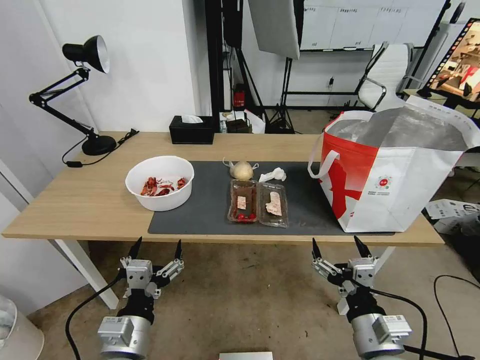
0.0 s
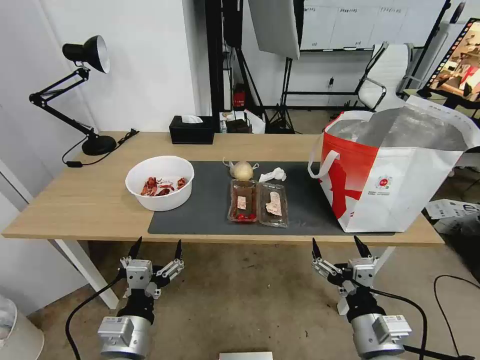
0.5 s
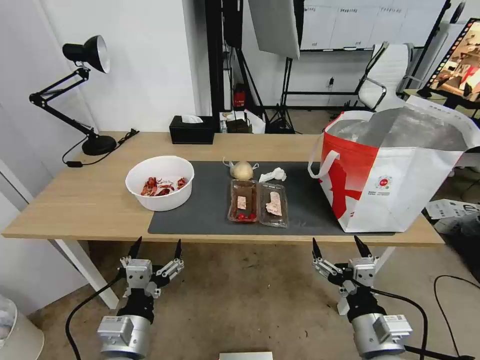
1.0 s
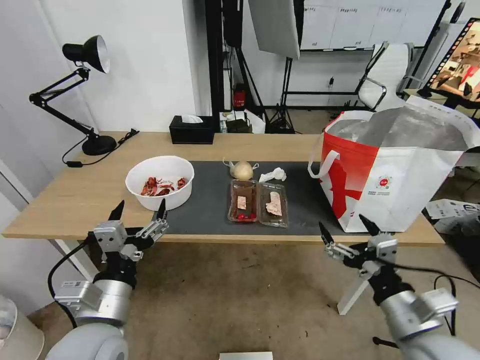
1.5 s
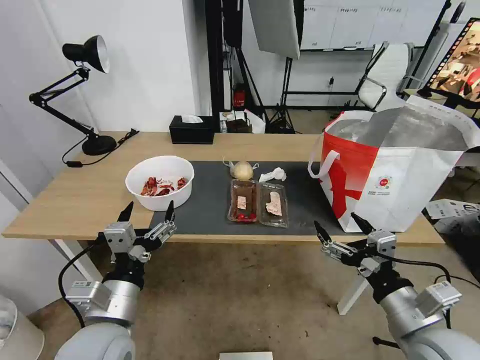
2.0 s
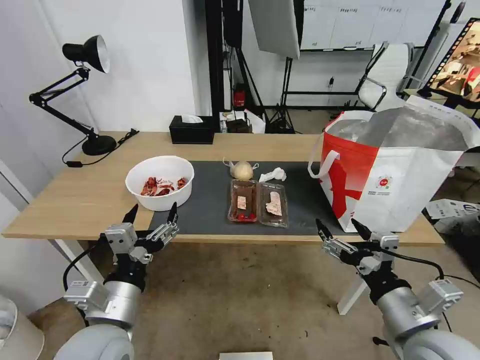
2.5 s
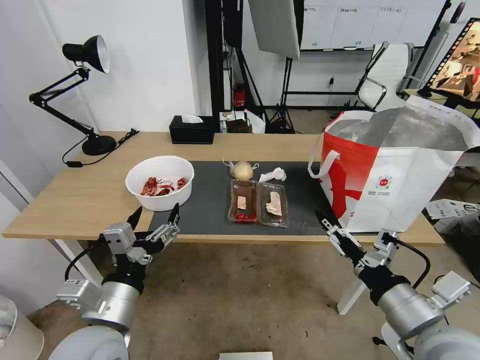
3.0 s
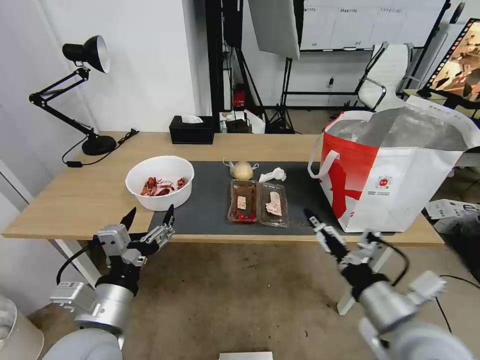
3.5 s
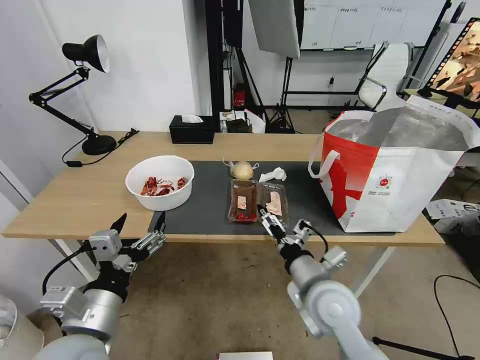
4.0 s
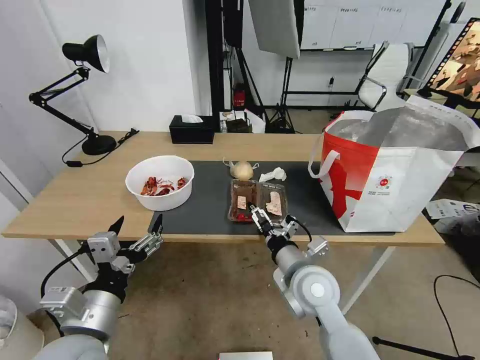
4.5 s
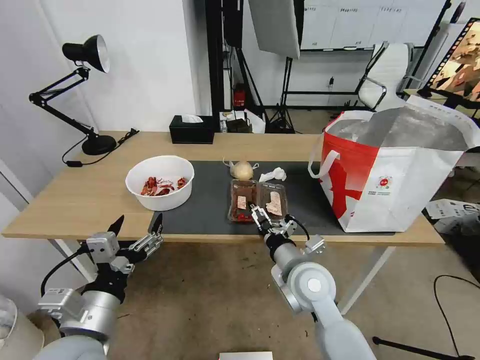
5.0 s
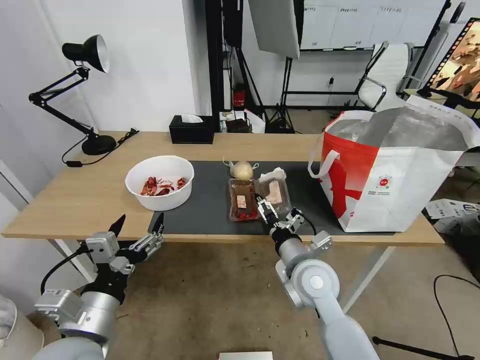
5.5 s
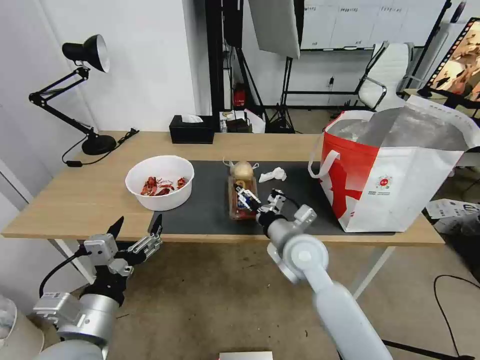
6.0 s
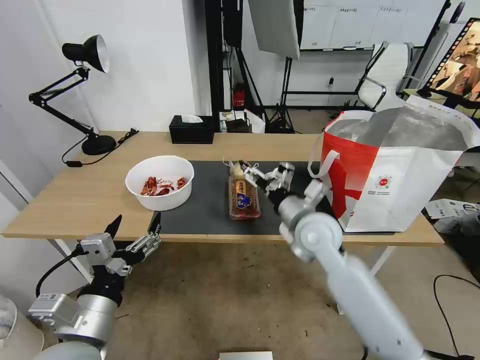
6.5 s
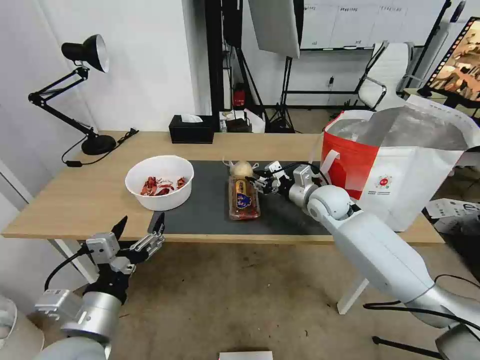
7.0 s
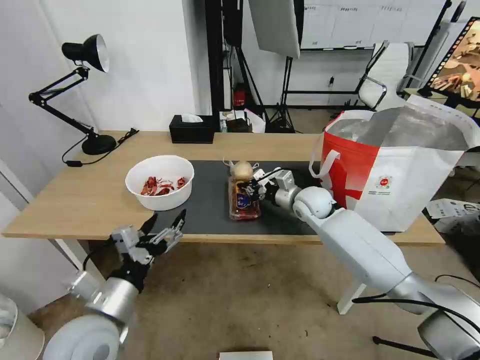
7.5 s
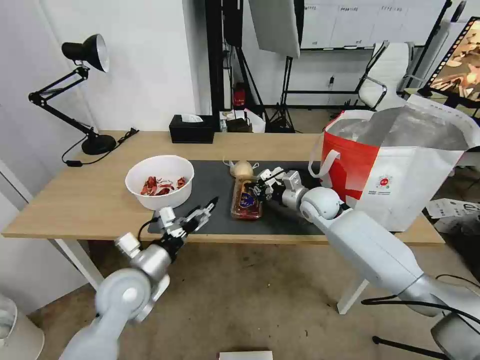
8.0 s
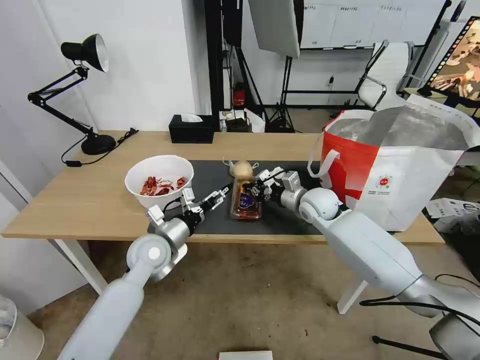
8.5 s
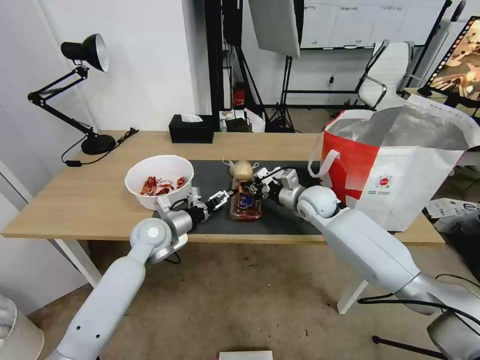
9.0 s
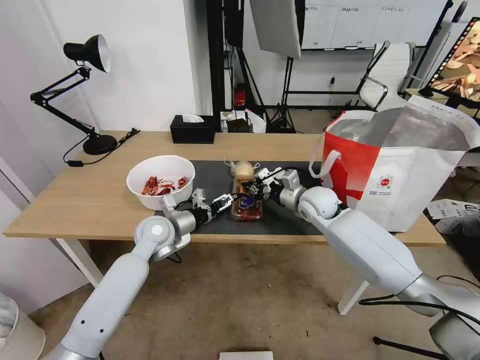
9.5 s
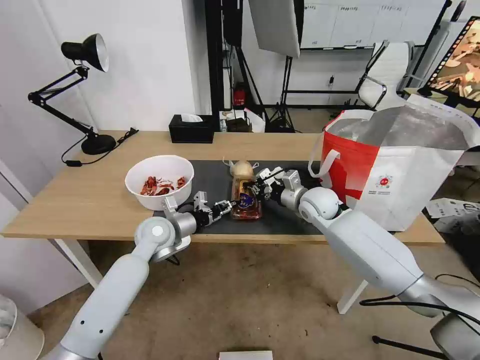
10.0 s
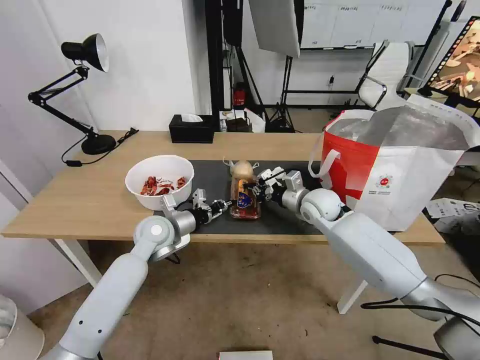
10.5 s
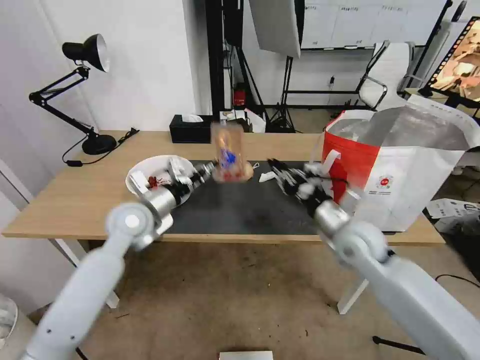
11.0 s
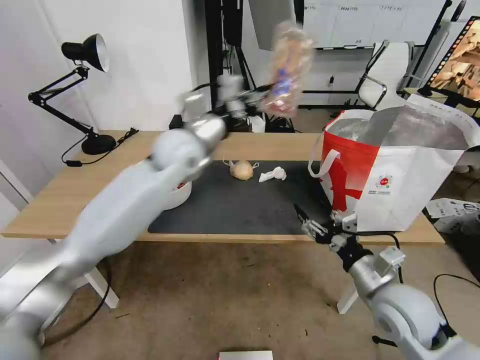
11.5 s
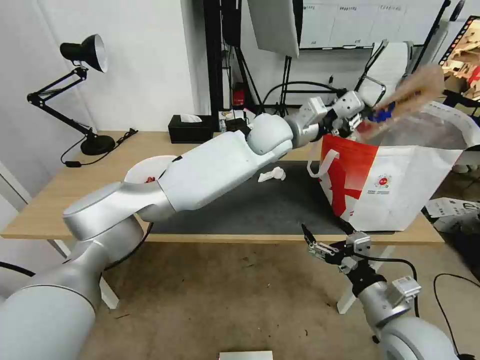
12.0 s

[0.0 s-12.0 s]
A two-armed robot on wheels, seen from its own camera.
Task of the whole recording: Pick up the trash from the table and place it into the takeout bag.
2.0 to 4.0 s: The right gripper shifts roughly 15 cm to the left and forward.
4.0 to 6.0 s: The right gripper is displaced forward by approximately 10 cm.
6.0 to 8.0 s: The left gripper moves forward, about 15 cm. The right gripper travels forward and to the right by about 20 cm, and closes.
8.0 to 10.0 s: The left gripper moves forward, roughly 15 cm, and closes.
10.0 to 12.0 s: The right gripper travels backward by some 30 cm, and opens up. Meanwhile the left gripper goes some 35 cm to the right, upward and forward, and closes.

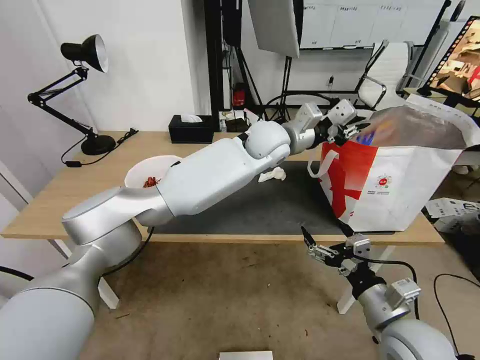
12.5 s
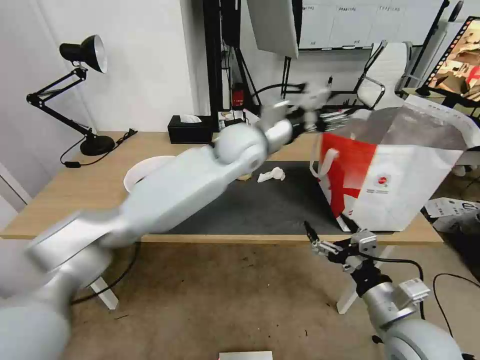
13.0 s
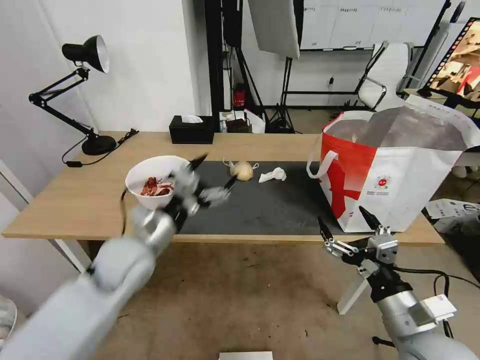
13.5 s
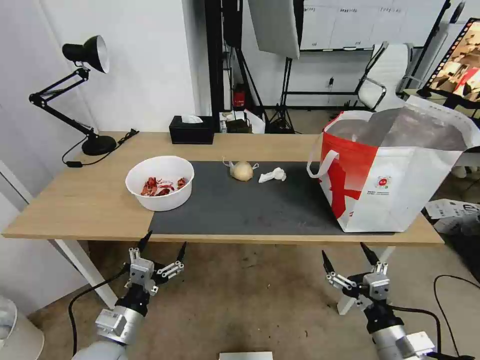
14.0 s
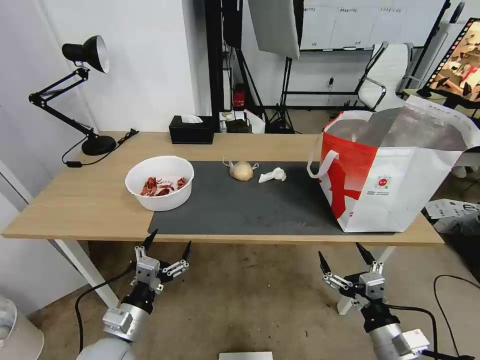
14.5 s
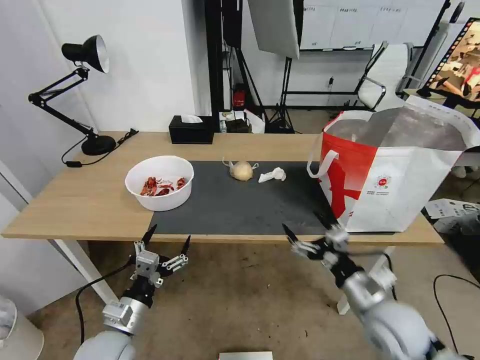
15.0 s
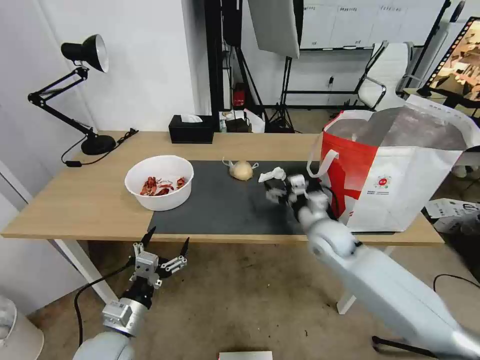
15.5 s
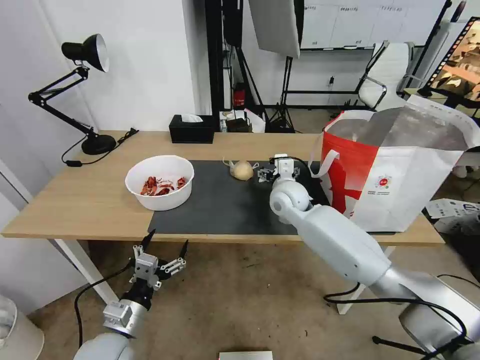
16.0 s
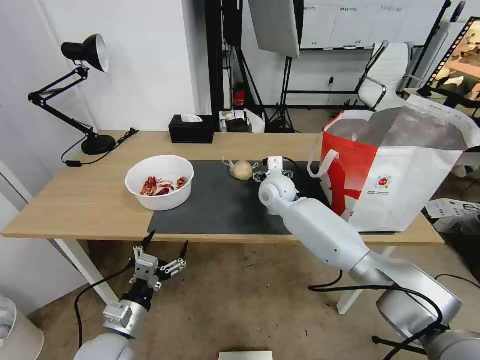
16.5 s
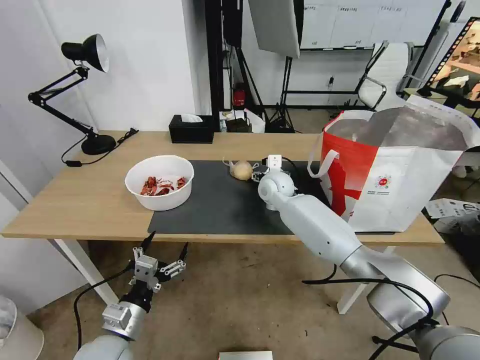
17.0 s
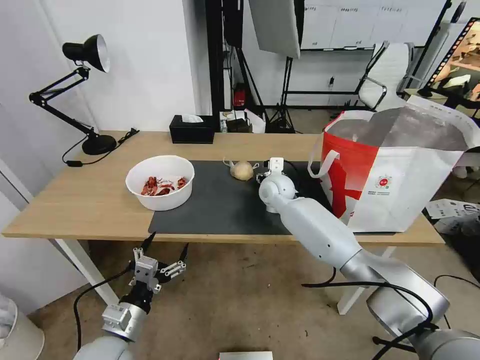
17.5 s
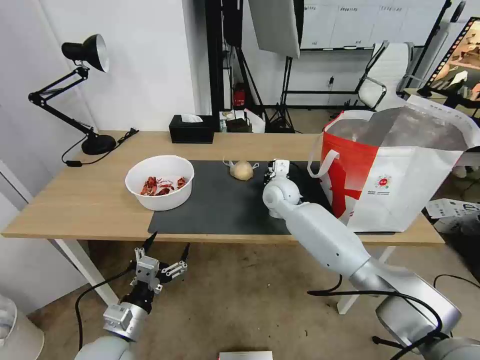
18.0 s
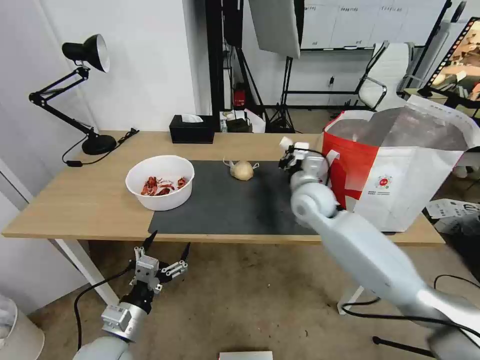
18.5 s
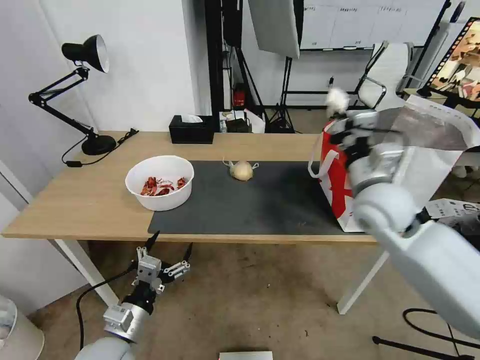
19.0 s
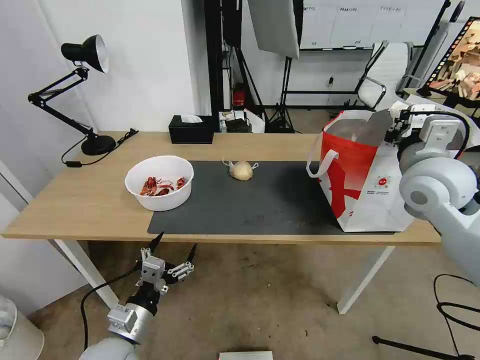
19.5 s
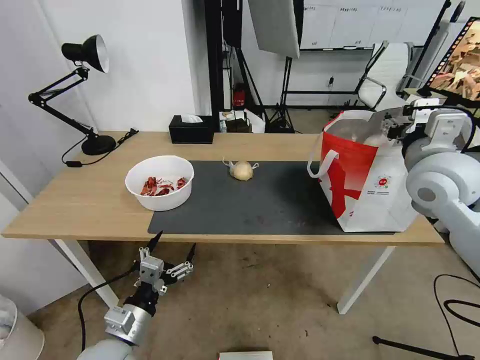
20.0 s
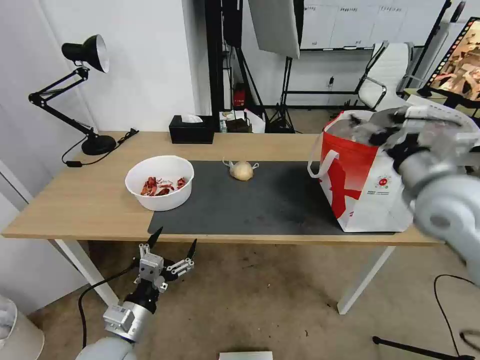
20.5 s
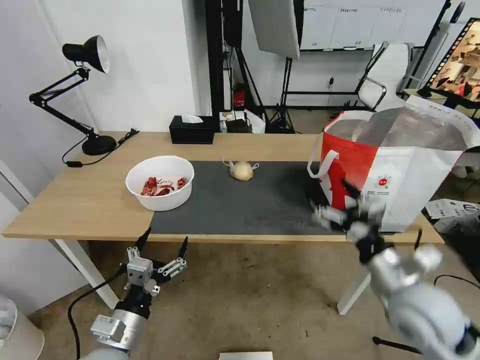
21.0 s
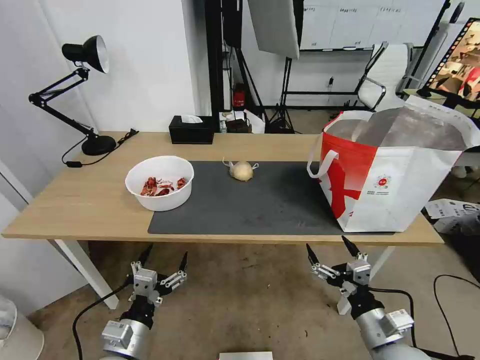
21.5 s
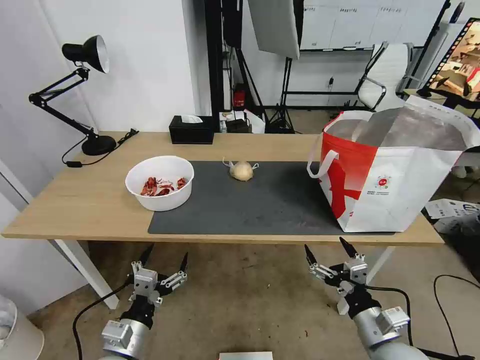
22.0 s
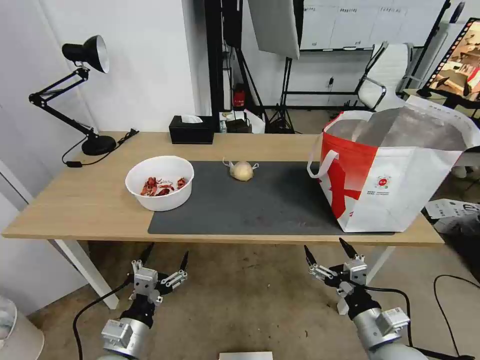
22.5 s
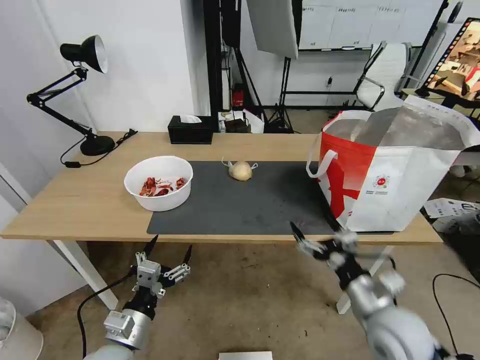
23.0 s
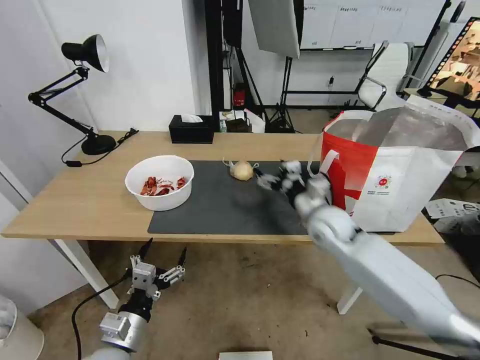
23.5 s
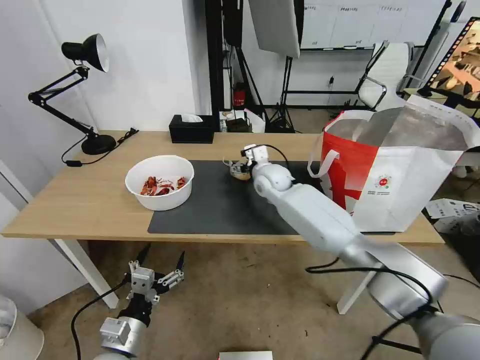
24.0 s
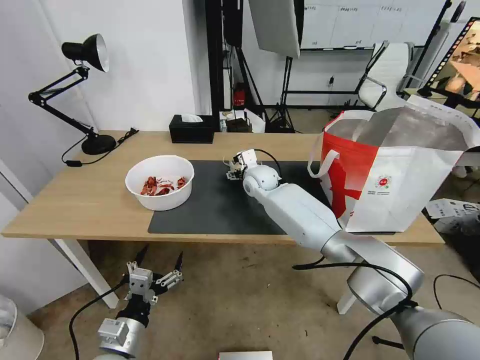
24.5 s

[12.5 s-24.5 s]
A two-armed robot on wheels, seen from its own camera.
Task of the whole recording: Pick up the trash from the table and place it into the takeout bag.
12.5 to 14.5 s: The right gripper goes approximately 10 cm downward and backward. The left gripper moves backward, to the left and downward, some 50 cm, and opens.
14.5 to 16.5 s: The right gripper heads forward and to the left, covering roughly 50 cm.
16.5 to 18.5 s: The right gripper heads to the right and backward, covering approximately 10 cm, and closes its fingers.
18.5 to 20.5 s: The right gripper is displaced to the right, upward and backward by approximately 25 cm, and opens up.
20.5 to 22.5 s: The right gripper goes some 30 cm downward and backward.
22.5 to 24.5 s: The right gripper heads forward and to the left, covering some 50 cm.

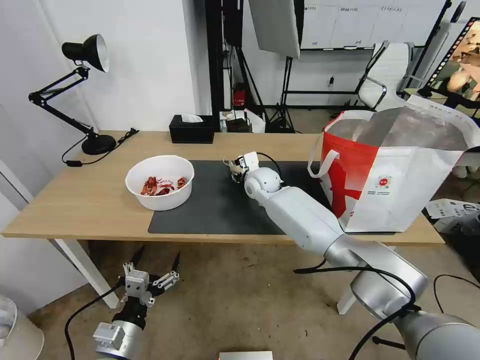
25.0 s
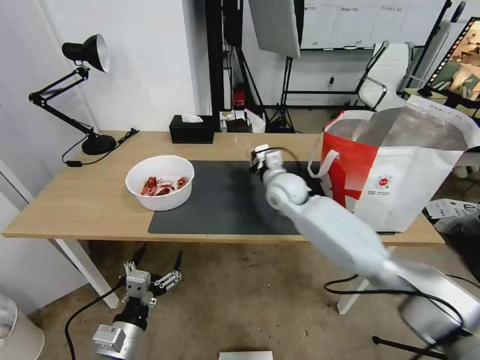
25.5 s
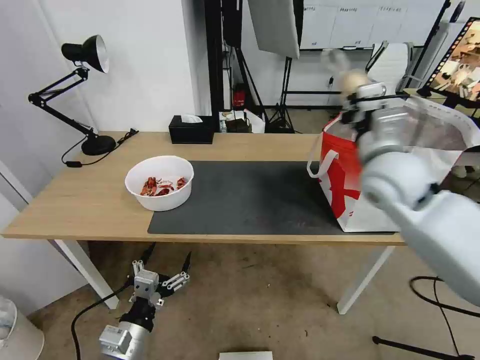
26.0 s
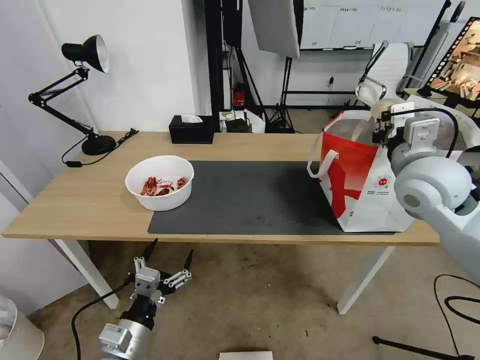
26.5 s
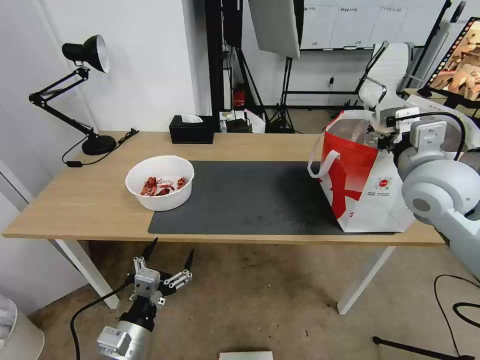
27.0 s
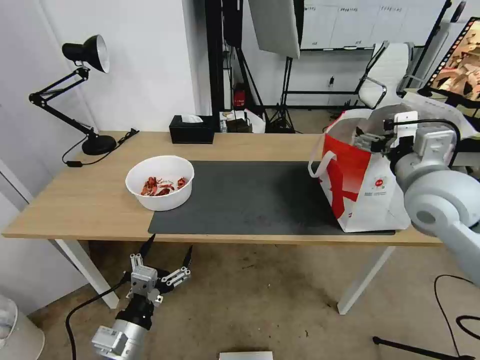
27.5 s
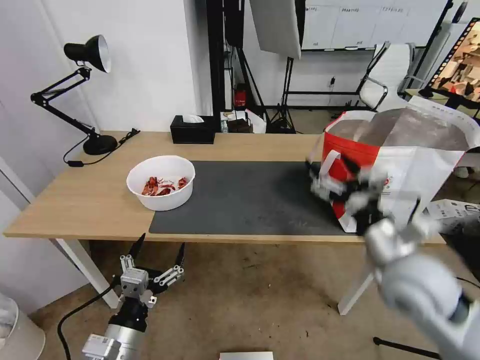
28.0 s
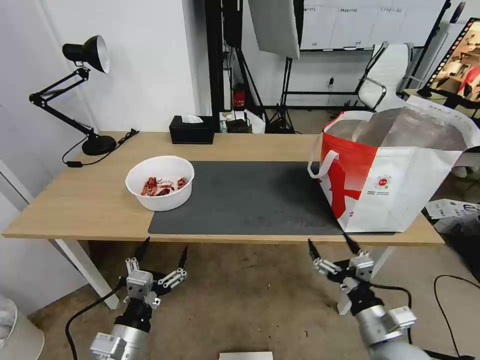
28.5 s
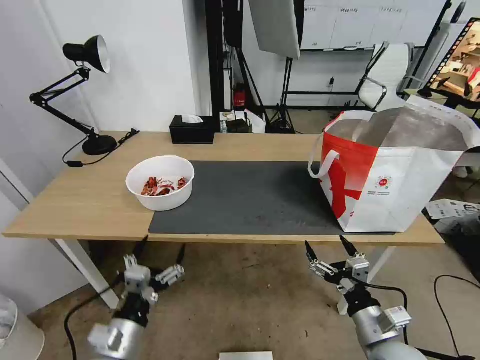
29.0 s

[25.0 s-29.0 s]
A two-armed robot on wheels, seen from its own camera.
Task of the whole recording: Pick up the trash from the table and place it into the takeout bag.
25.0 to 27.0 s: The right gripper shifts approximately 35 cm to the right, backward and upward, and closes, then opens again.
27.0 to 29.0 s: The right gripper is displaced downward and backward by about 35 cm.
